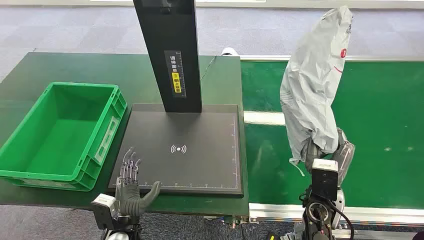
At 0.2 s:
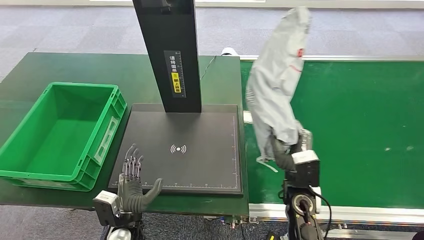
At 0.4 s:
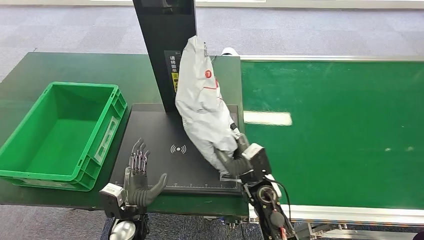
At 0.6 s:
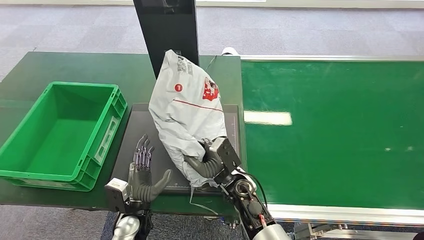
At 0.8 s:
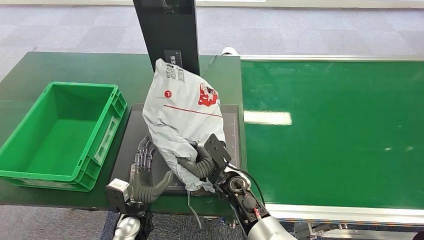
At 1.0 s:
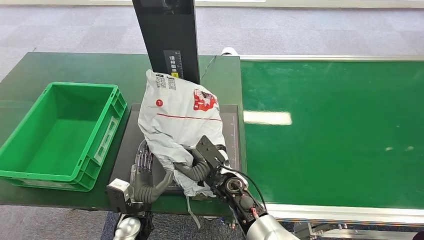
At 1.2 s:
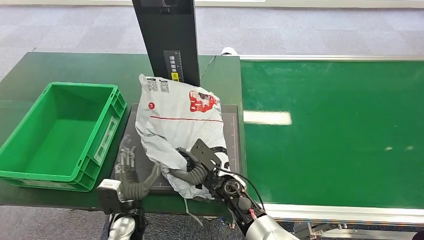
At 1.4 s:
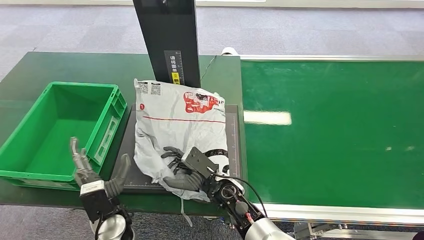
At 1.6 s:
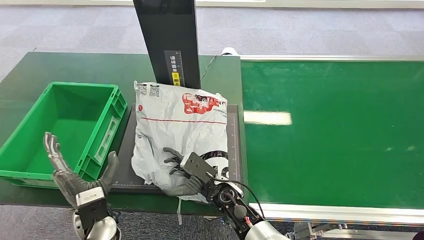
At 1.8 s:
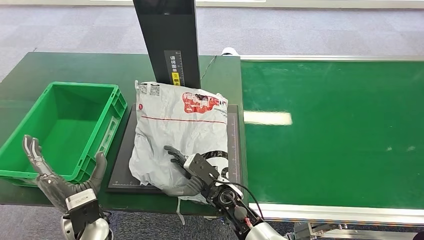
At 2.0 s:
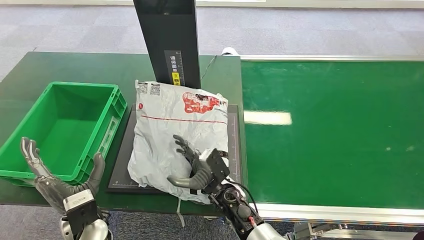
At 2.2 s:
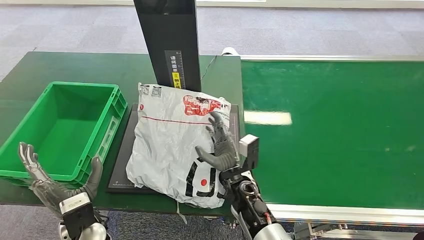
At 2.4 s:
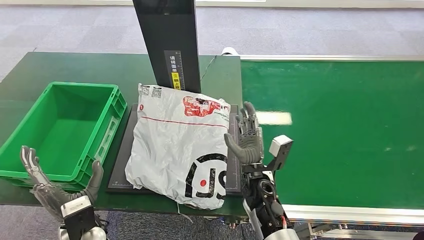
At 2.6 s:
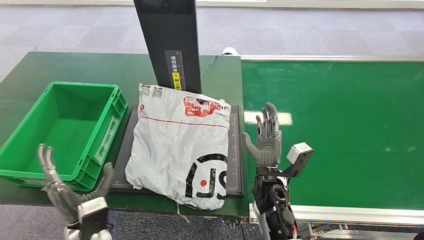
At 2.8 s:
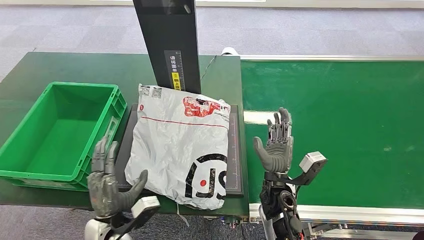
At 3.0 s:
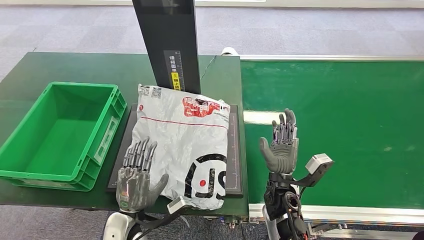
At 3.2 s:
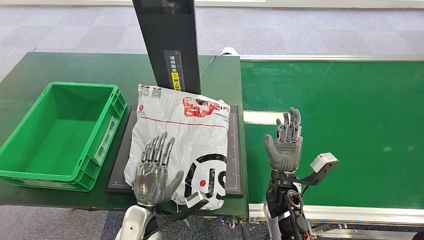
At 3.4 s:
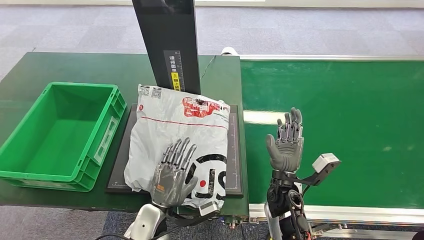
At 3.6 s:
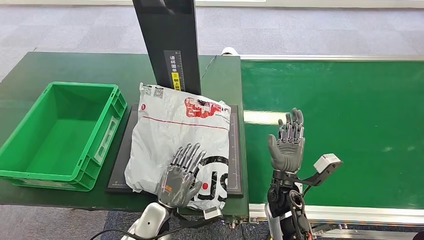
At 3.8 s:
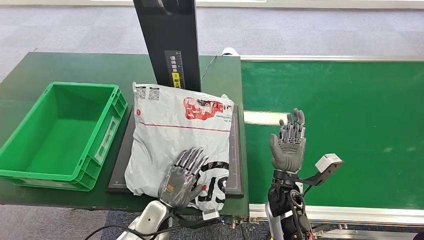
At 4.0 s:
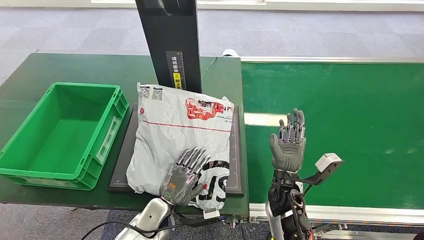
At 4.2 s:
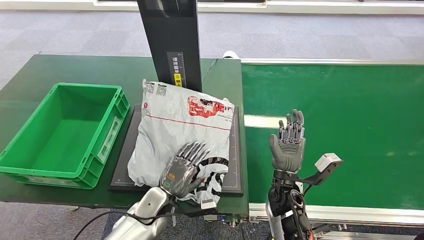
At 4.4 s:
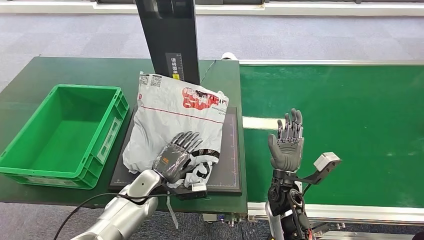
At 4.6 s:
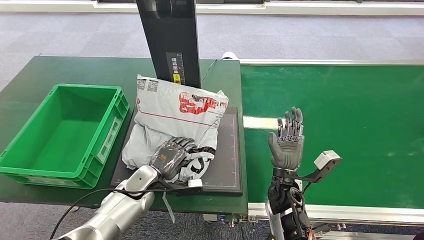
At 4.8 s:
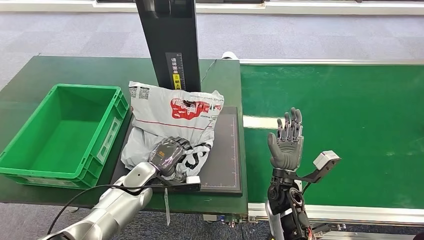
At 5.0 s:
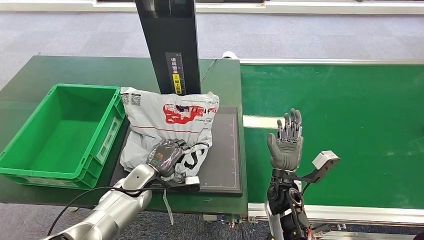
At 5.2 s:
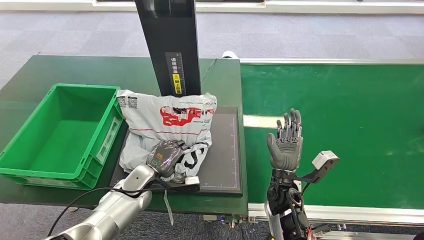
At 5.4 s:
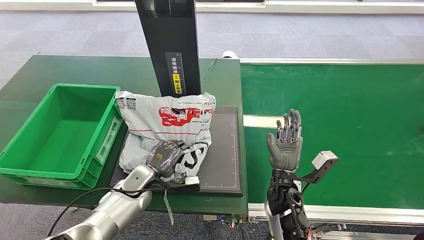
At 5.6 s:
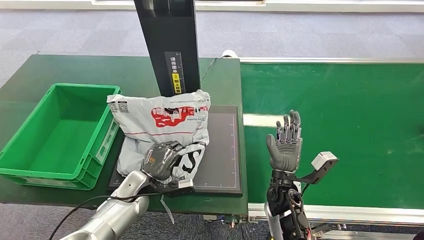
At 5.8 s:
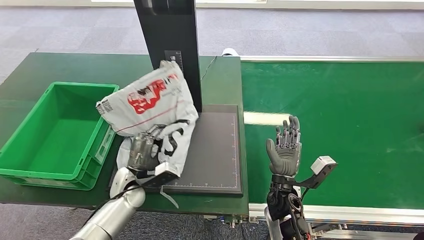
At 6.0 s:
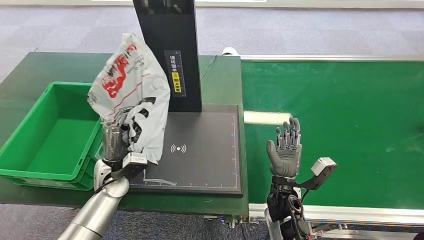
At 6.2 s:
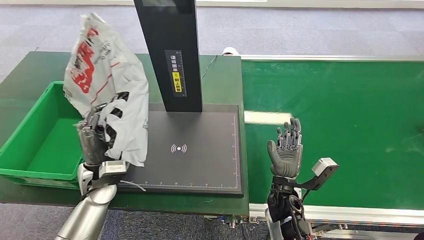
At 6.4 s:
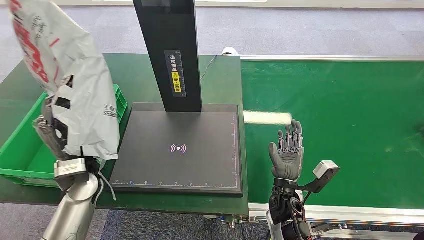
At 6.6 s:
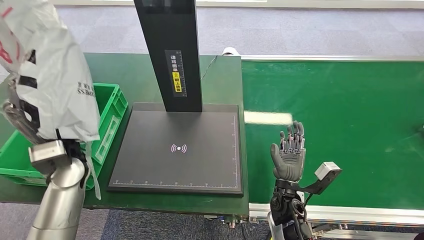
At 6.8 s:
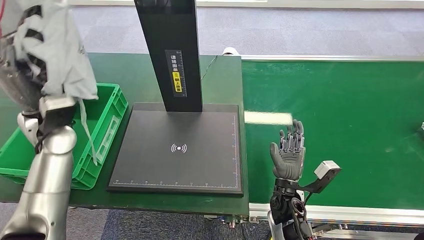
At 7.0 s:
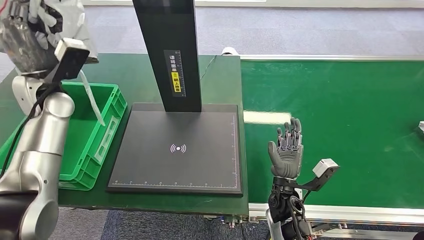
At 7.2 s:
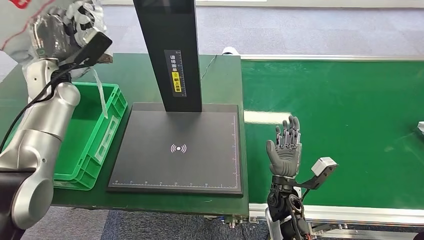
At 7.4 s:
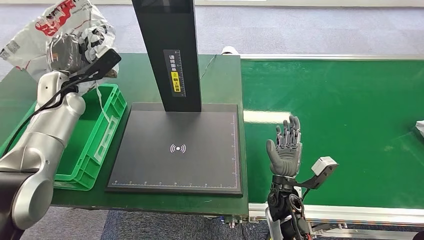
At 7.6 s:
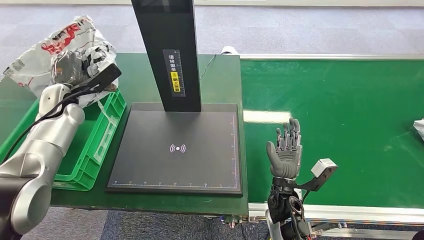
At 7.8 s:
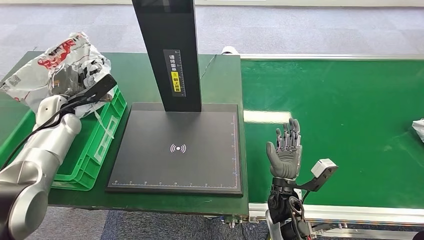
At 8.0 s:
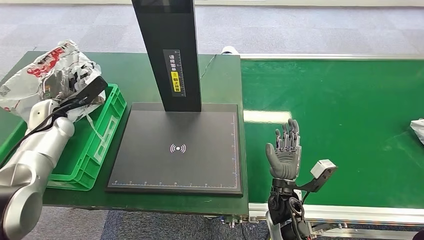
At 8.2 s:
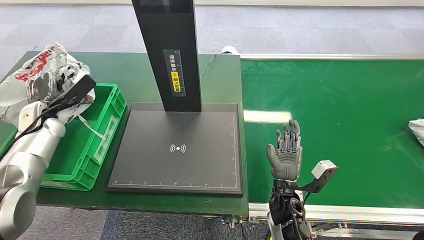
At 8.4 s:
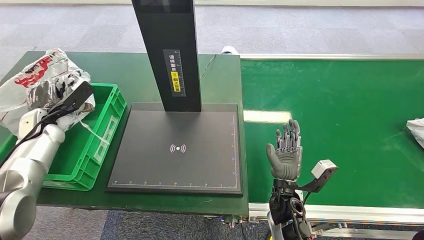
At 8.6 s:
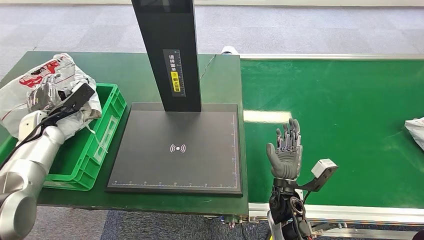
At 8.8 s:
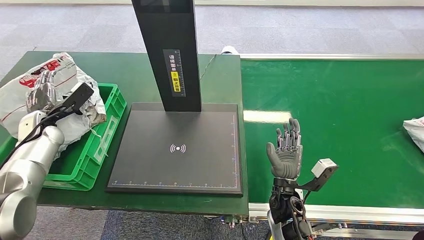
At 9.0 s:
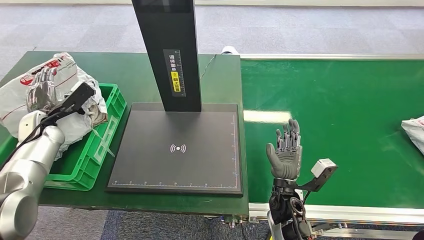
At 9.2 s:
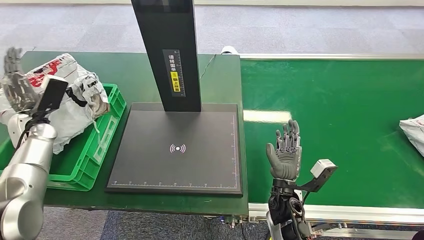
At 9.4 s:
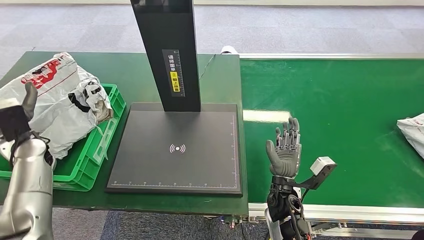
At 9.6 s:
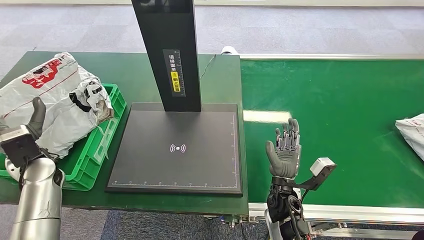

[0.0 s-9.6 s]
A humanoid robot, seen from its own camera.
1.6 to 3.2 s: The hands both shift to the right by roughly 10 cm.
8.0 to 9.6 s: The left hand shifts approximately 10 cm backward.
